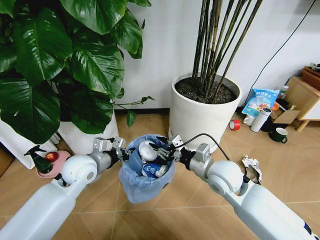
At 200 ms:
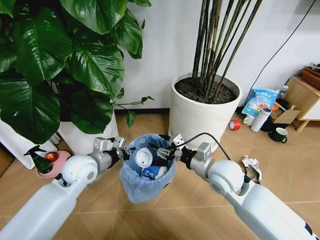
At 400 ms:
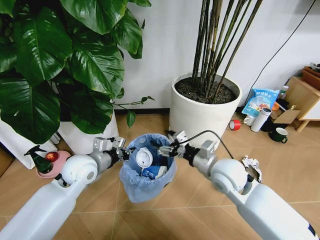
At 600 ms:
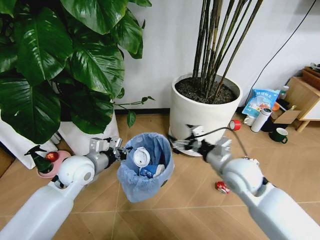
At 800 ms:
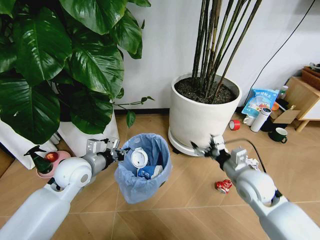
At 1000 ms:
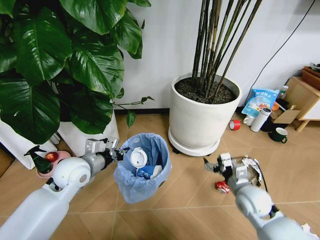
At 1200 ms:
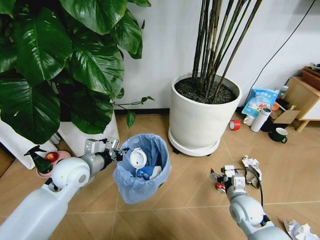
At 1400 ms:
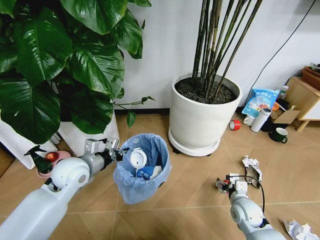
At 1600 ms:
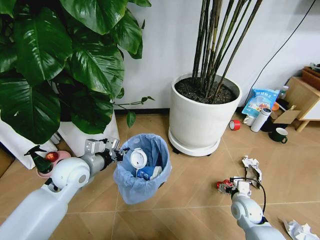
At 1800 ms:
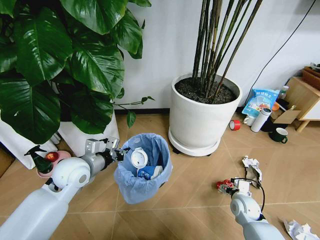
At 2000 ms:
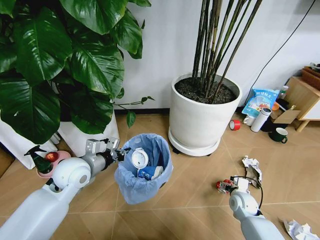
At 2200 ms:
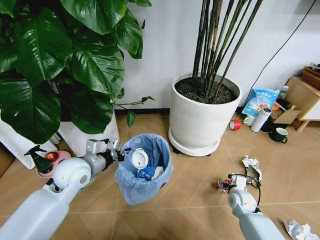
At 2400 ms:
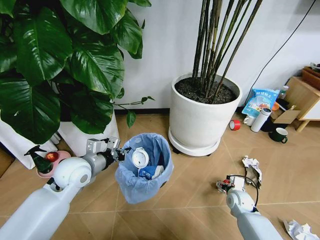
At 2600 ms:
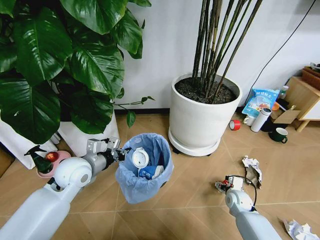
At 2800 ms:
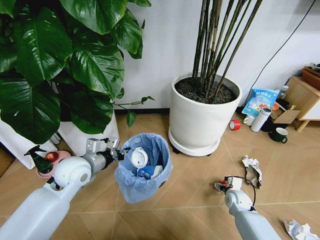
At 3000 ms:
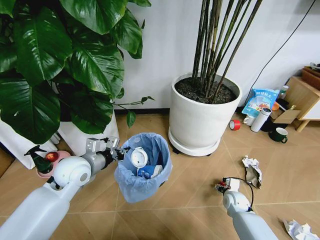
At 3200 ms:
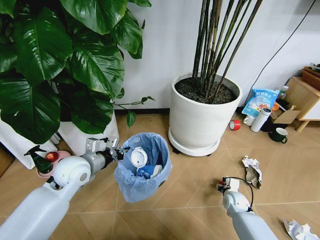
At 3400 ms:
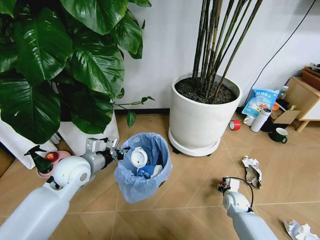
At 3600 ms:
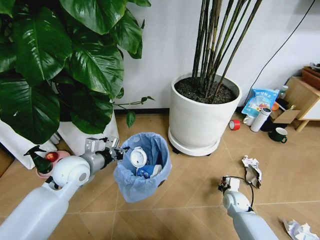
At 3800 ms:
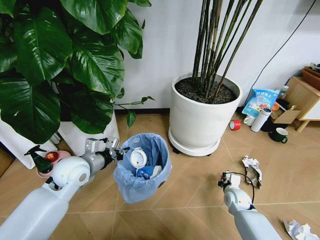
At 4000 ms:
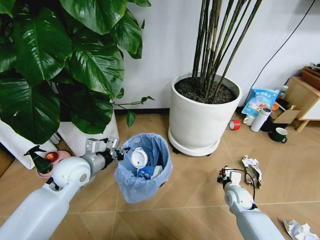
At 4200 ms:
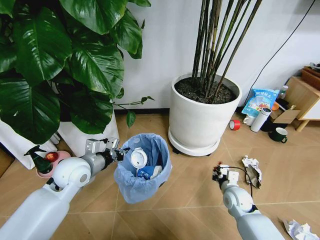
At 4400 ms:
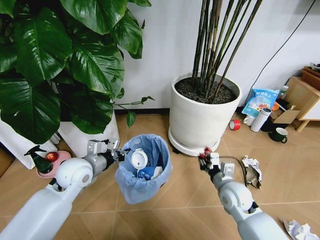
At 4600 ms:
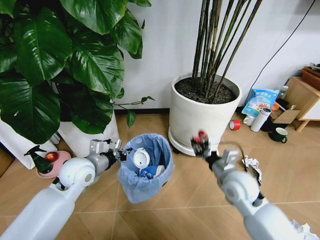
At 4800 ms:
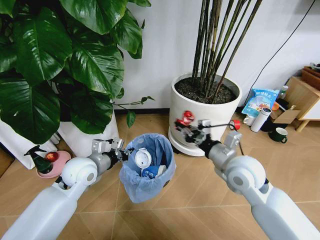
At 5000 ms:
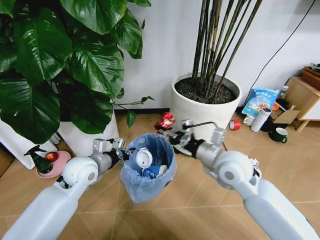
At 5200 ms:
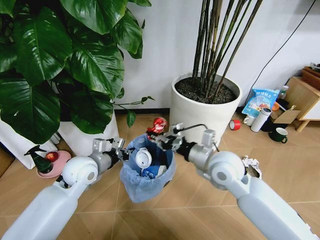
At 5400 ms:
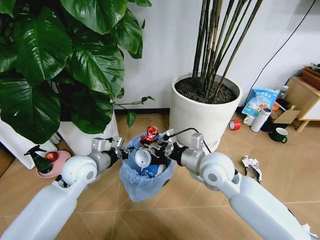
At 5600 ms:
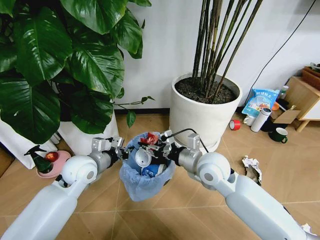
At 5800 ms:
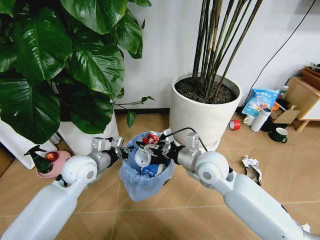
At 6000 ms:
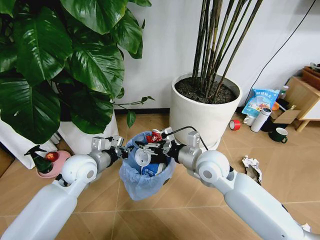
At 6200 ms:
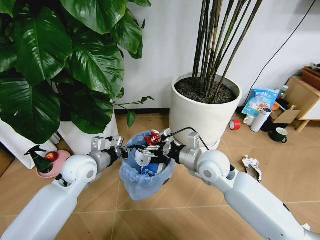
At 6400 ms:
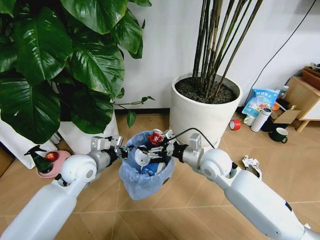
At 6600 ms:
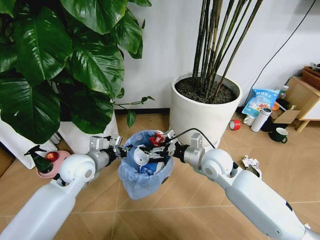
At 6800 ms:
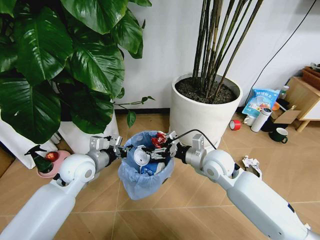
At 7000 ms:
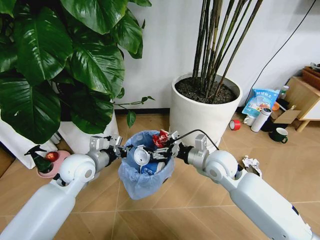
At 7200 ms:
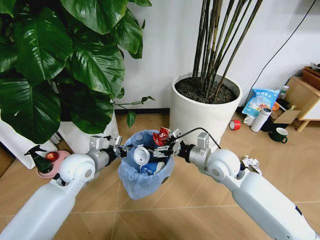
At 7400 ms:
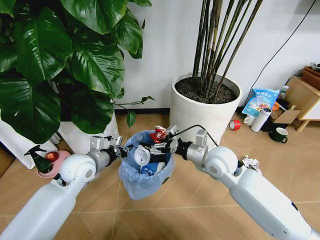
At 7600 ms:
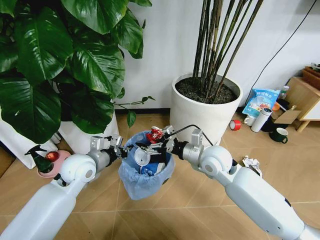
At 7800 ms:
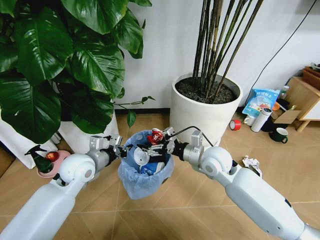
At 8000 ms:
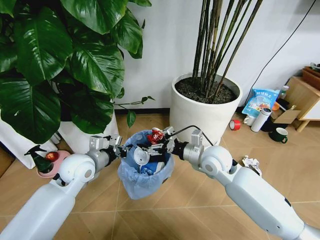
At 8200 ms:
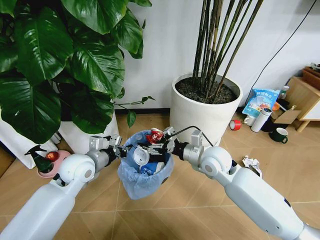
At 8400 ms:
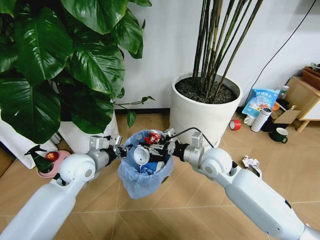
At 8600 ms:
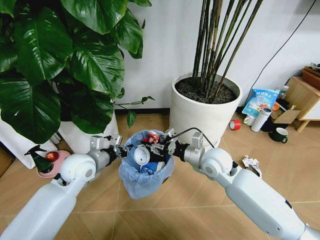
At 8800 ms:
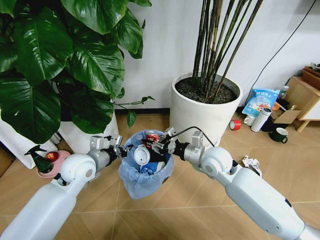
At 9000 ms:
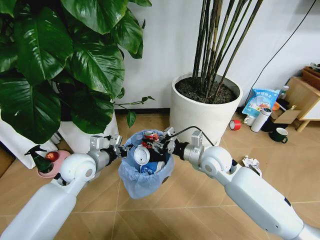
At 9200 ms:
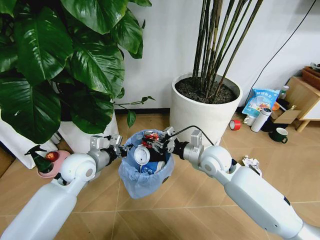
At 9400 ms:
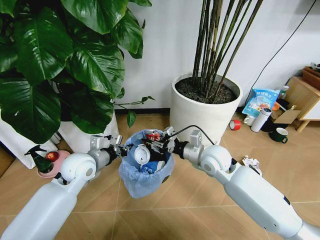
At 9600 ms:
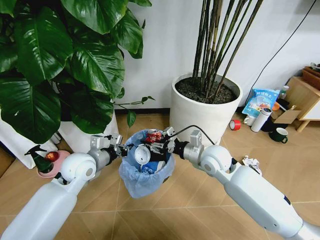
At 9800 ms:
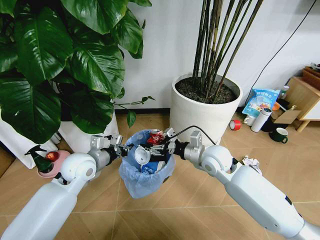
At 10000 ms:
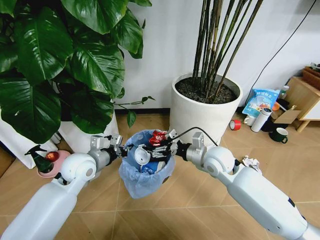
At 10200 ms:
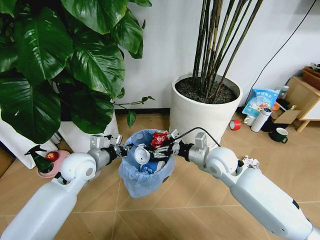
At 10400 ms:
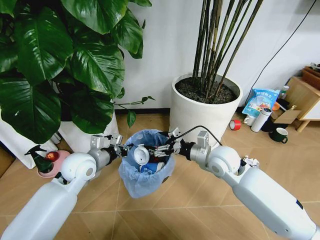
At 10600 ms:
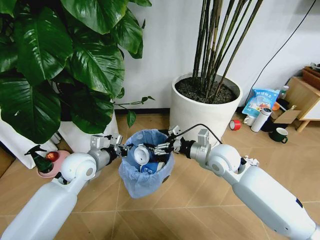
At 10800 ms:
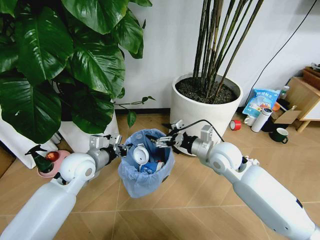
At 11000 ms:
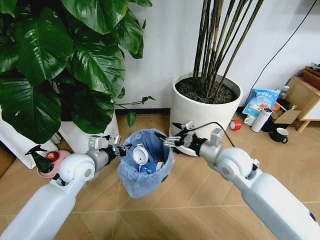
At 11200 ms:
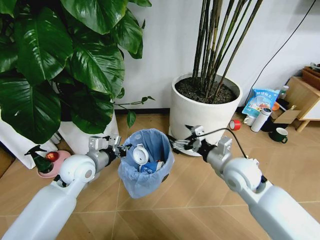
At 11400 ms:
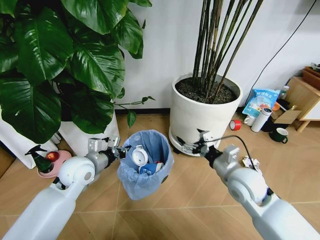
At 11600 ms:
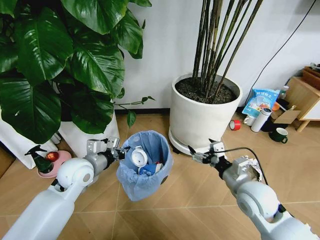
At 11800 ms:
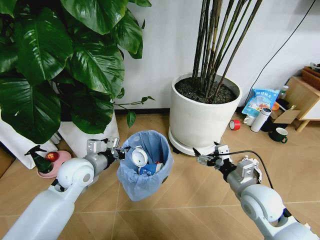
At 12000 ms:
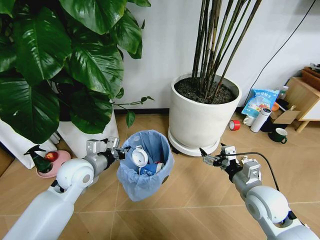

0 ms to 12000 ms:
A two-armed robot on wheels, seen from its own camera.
Task of the whole recording: Pick up the trash bin and place the garbage on the floor into it.
0 ms to 1600 ms: The right gripper heads downward and to the right, covering roughly 25 cm, and opens up.
1600 ms to 3000 ms: The right gripper moves downward, some 5 cm.
3000 ms to 4400 ms: The right gripper is displaced upward and to the left by approximately 20 cm, and closes its fingers.
4400 ms to 6000 ms: The right gripper is displaced upward and to the left by about 15 cm, and opens its fingers.
6000 ms to 7600 ms: The grippers move only a little.
7600 ms to 9000 ms: The right gripper closes its fingers.
9000 ms to 10400 ms: The right gripper opens up.
10400 ms to 12000 ms: The right gripper is displaced backward and to the right by some 15 cm.

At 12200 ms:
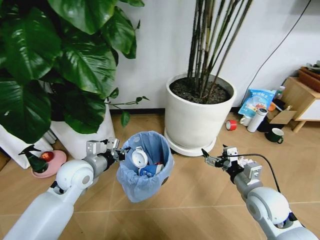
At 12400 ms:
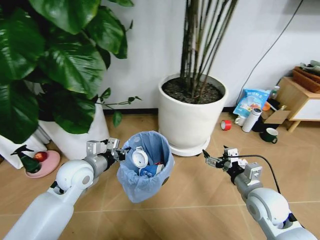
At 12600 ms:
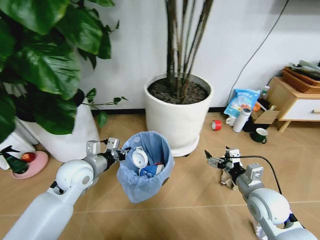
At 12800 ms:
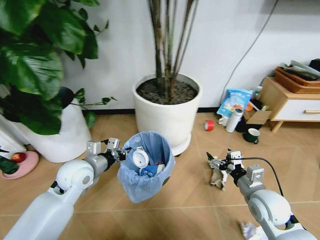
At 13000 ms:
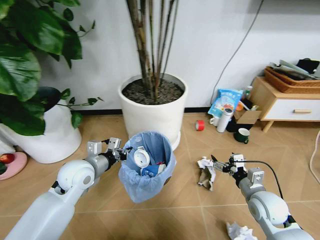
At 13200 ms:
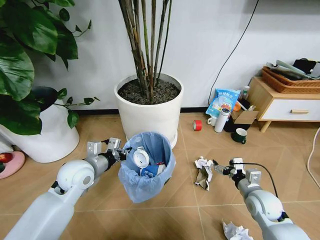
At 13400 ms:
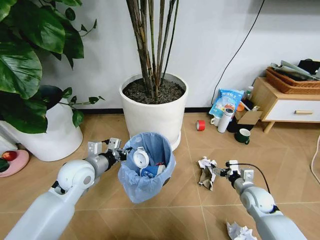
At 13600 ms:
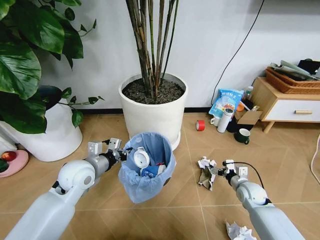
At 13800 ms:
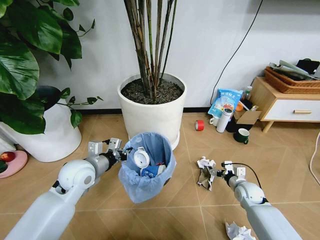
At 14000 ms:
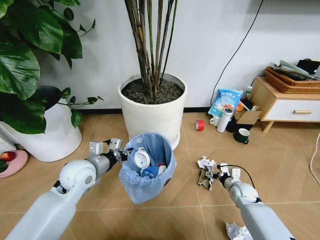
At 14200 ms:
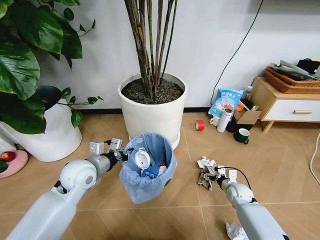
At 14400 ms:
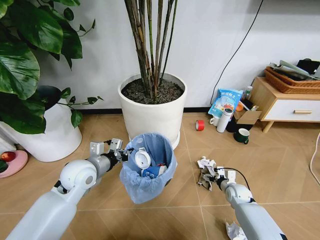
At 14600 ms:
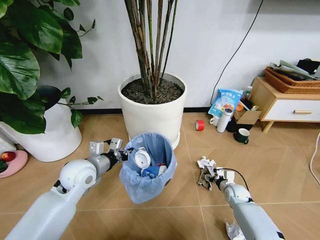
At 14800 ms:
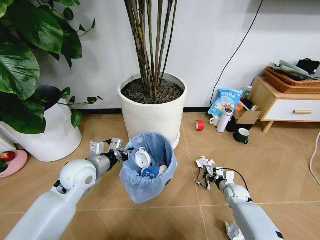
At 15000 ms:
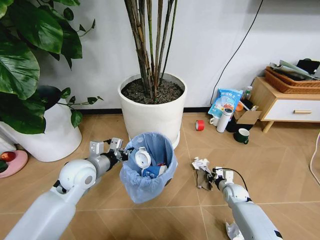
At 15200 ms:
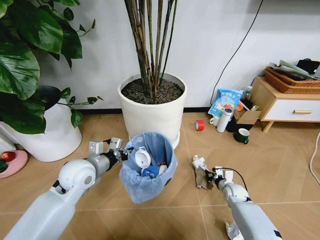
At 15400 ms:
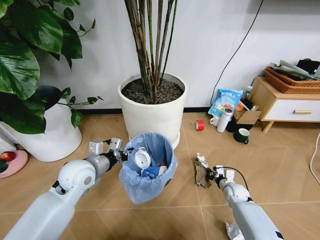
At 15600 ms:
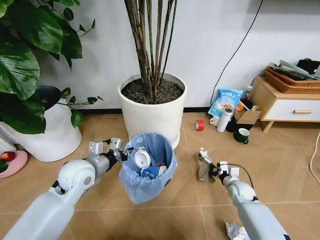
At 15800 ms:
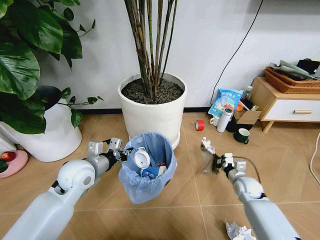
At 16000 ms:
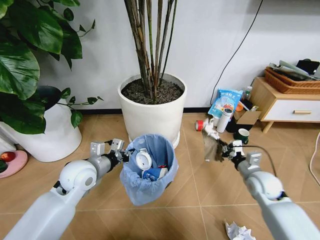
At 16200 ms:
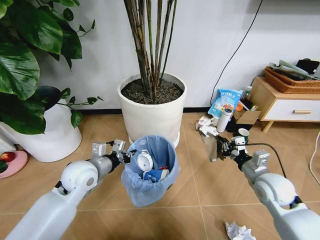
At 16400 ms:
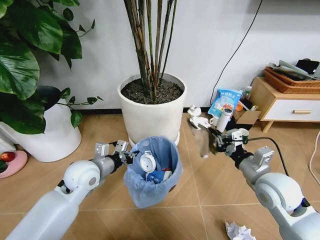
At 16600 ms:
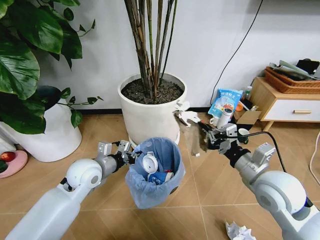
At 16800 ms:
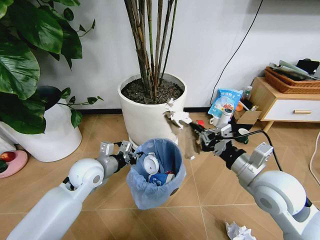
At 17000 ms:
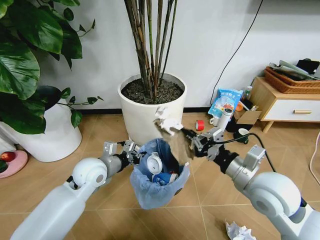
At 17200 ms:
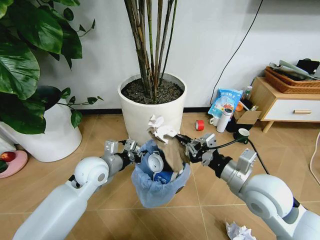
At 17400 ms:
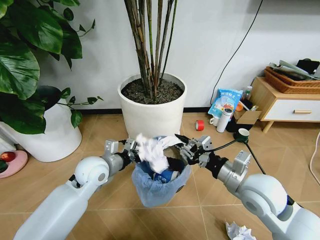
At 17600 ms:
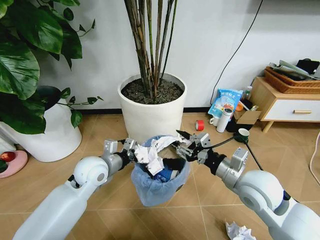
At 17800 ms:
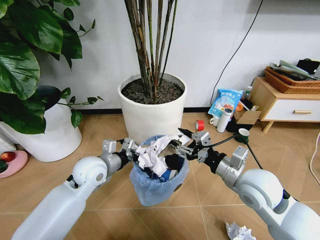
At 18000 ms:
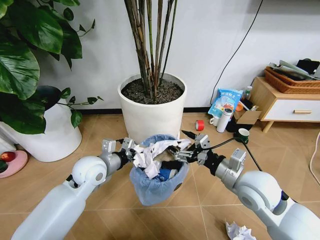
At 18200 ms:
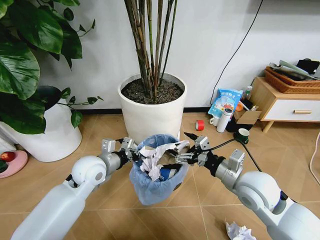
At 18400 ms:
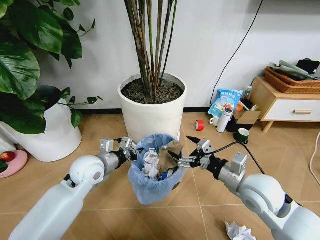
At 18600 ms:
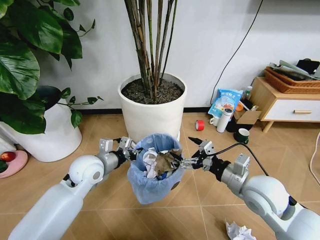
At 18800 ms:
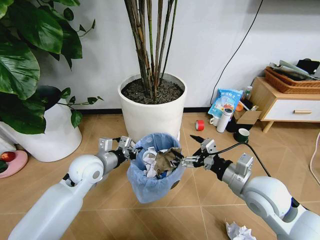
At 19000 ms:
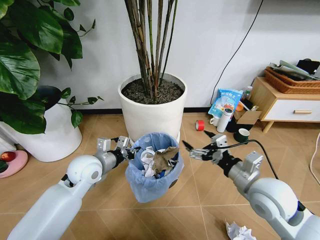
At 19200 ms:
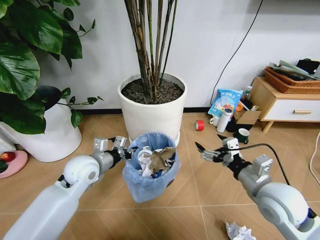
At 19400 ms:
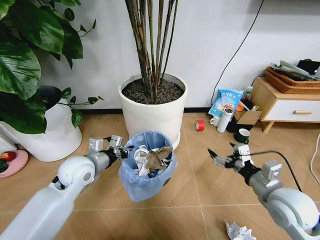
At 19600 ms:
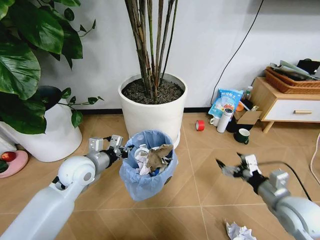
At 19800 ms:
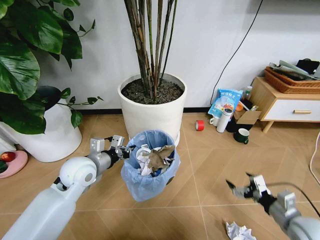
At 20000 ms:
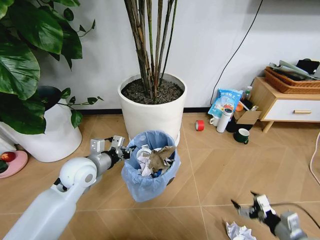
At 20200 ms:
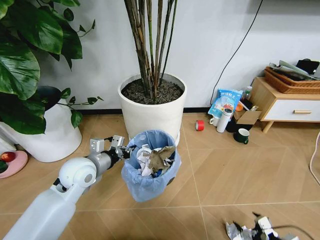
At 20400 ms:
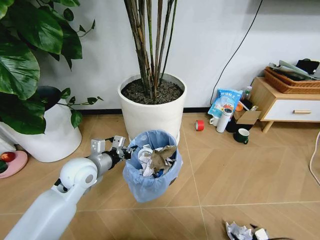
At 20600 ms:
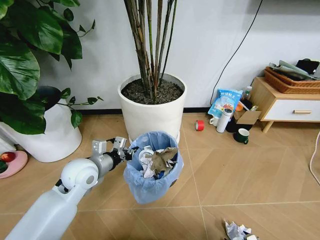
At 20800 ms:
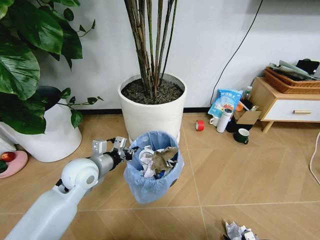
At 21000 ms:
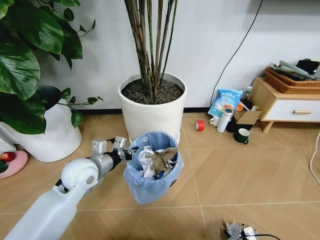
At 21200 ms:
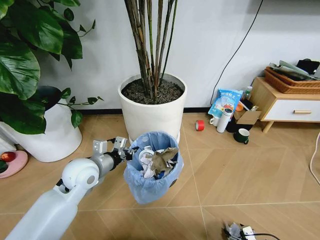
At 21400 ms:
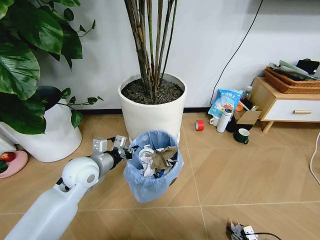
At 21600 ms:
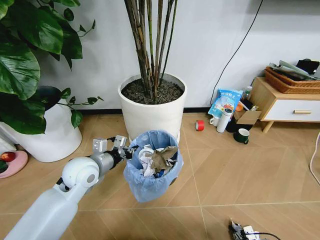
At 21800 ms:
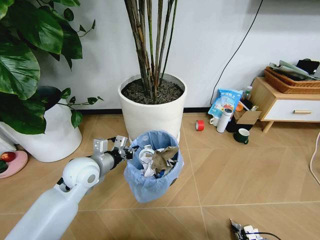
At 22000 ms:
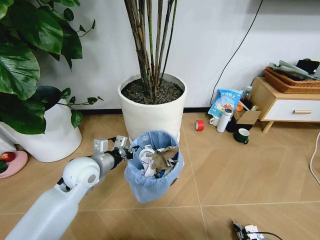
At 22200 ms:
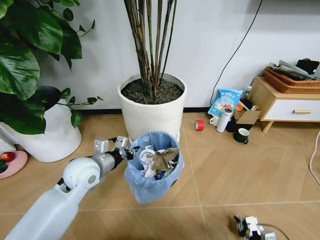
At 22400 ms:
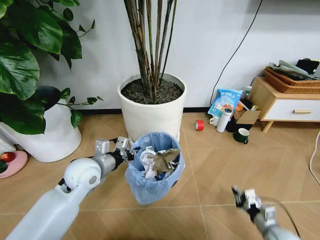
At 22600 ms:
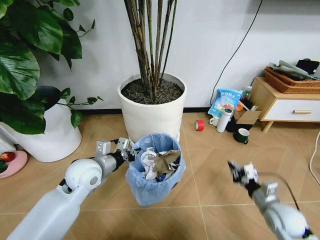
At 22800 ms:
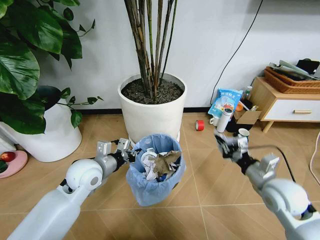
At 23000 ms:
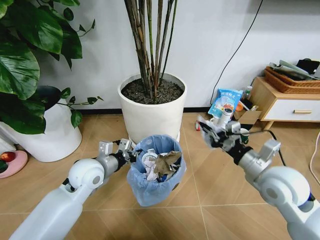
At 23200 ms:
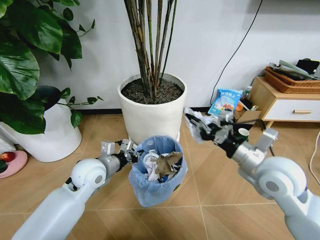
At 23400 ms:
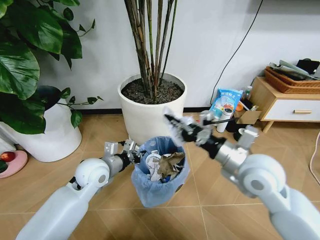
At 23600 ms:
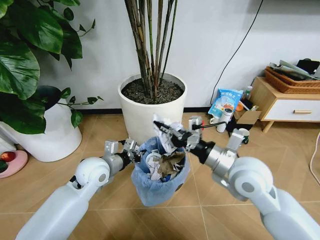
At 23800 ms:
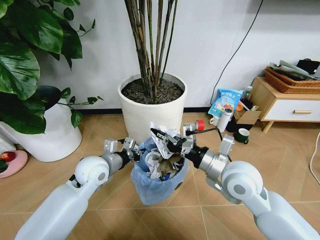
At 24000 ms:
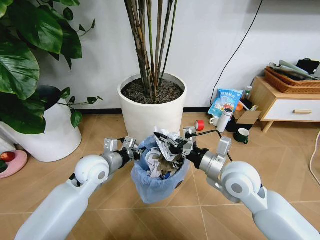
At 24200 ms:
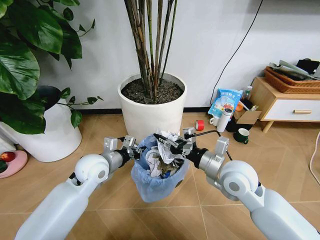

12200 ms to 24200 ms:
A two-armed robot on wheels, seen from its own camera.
Task of the whole recording: Pick up the trash bin and place the garbage on the floor into it.
12200 ms to 13800 ms: The right gripper moves downward and forward, roughly 20 cm.
13800 ms to 15200 ms: The right gripper shifts some 5 cm downward, and closes its fingers.
15200 ms to 16600 ms: The right gripper heads upward, covering approximately 35 cm.
16600 ms to 18200 ms: The right gripper opens its fingers.
18200 ms to 19800 ms: The right gripper travels to the right, downward and backward by some 20 cm.
19800 ms to 21200 ms: The right gripper is displaced downward and backward by approximately 20 cm.
21200 ms to 22600 ms: The right gripper travels upward and forward by roughly 25 cm, and closes its fingers.
22600 ms to 24200 ms: The right gripper moves to the left and upward, about 20 cm.
